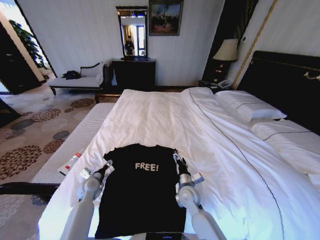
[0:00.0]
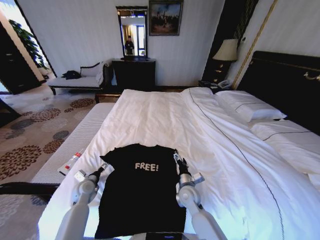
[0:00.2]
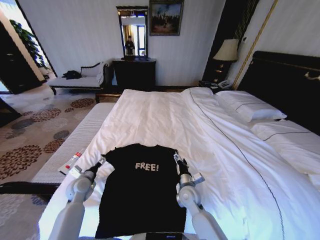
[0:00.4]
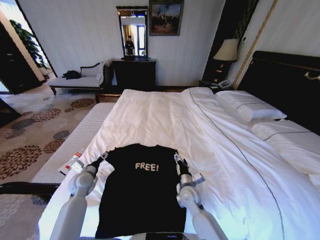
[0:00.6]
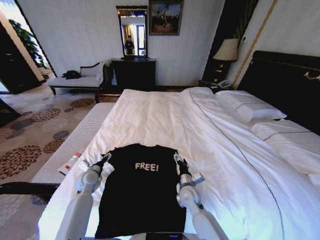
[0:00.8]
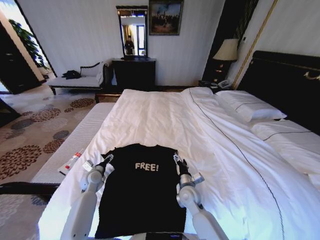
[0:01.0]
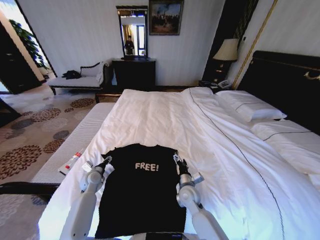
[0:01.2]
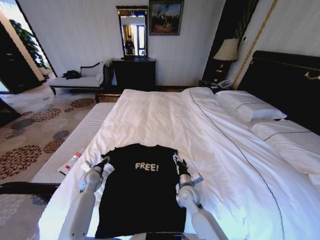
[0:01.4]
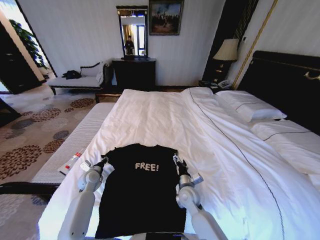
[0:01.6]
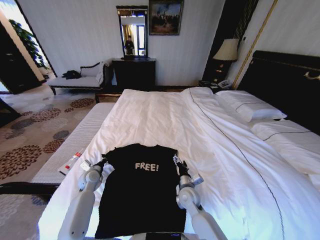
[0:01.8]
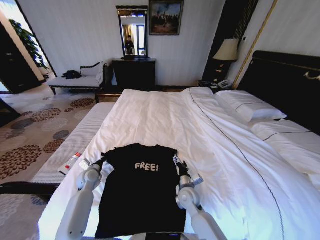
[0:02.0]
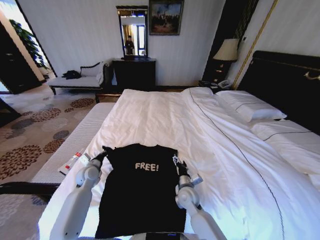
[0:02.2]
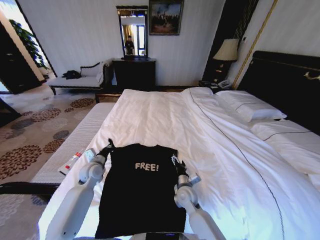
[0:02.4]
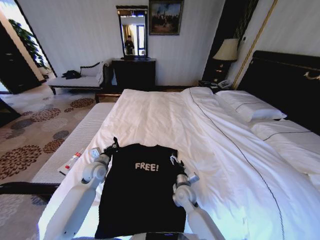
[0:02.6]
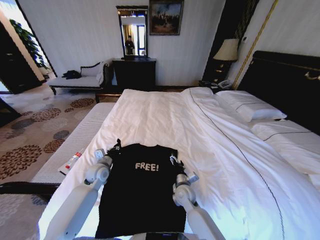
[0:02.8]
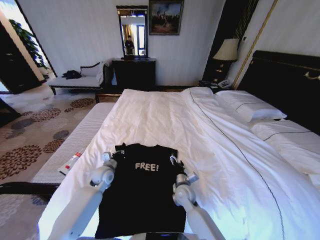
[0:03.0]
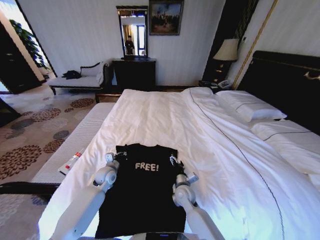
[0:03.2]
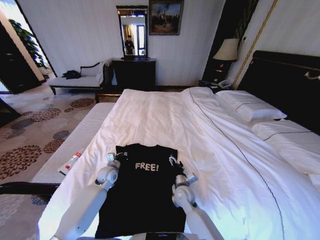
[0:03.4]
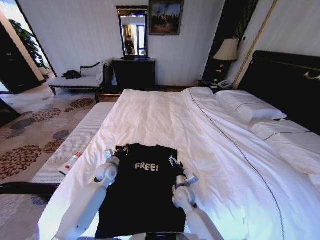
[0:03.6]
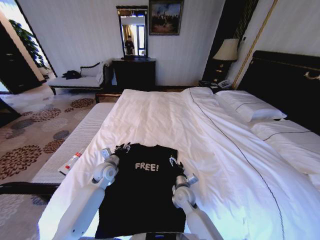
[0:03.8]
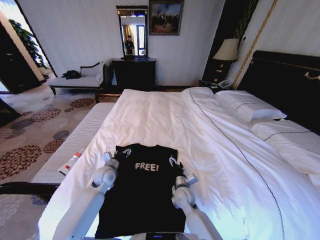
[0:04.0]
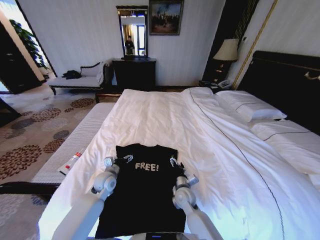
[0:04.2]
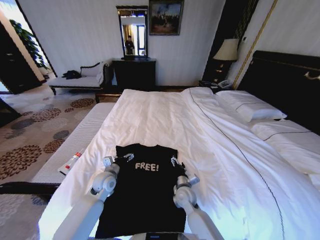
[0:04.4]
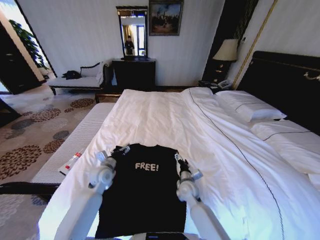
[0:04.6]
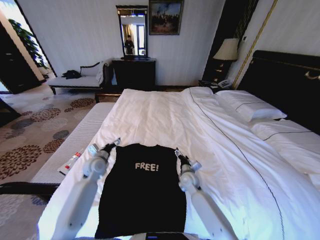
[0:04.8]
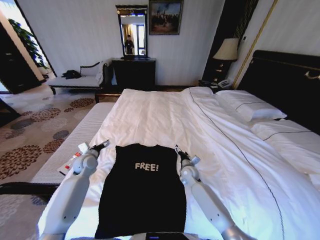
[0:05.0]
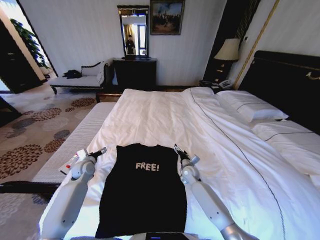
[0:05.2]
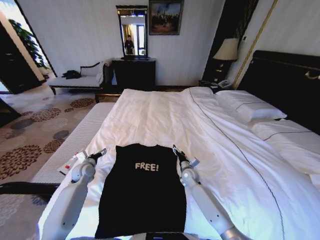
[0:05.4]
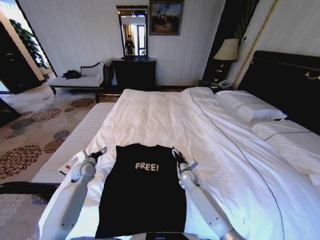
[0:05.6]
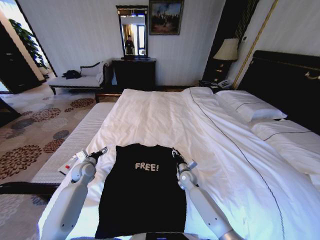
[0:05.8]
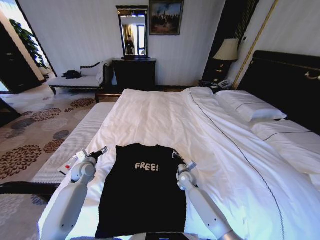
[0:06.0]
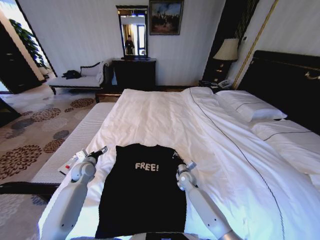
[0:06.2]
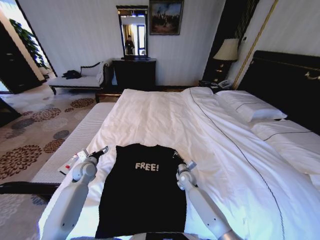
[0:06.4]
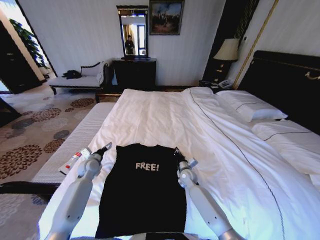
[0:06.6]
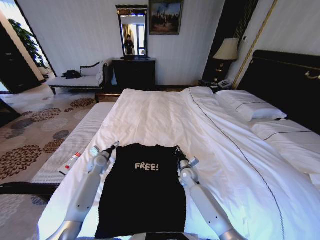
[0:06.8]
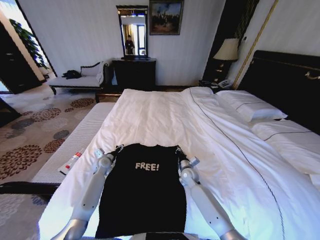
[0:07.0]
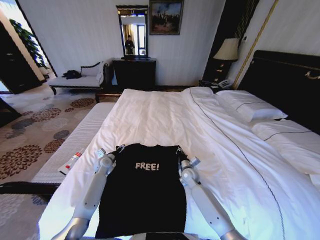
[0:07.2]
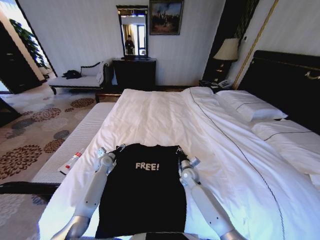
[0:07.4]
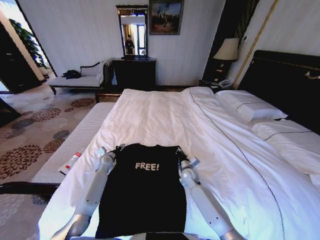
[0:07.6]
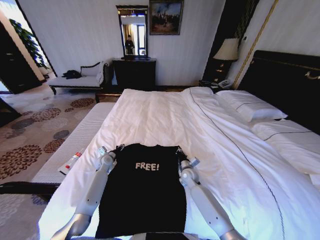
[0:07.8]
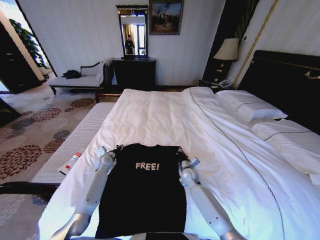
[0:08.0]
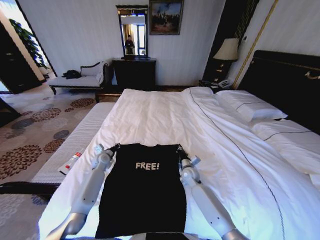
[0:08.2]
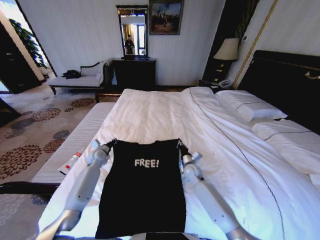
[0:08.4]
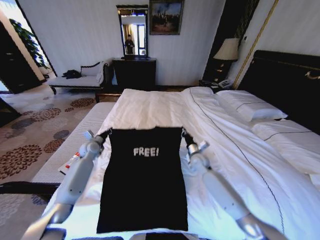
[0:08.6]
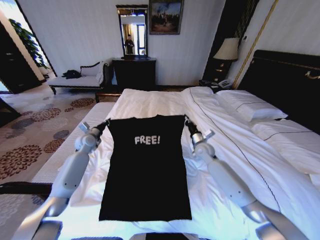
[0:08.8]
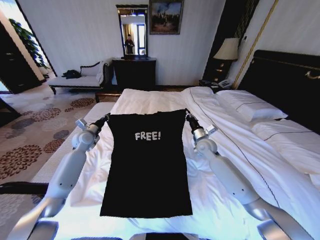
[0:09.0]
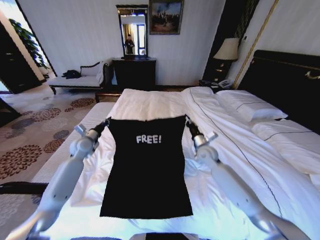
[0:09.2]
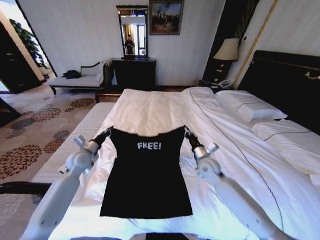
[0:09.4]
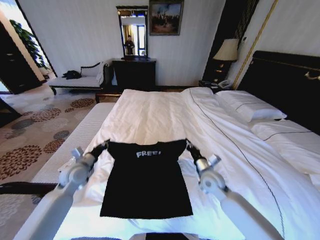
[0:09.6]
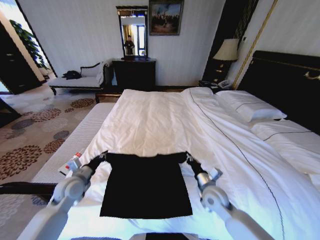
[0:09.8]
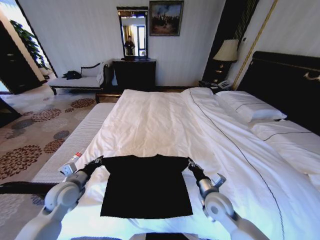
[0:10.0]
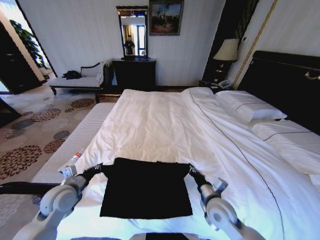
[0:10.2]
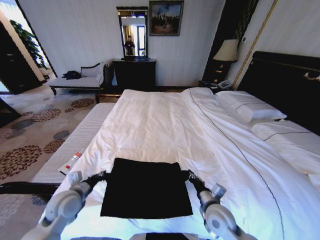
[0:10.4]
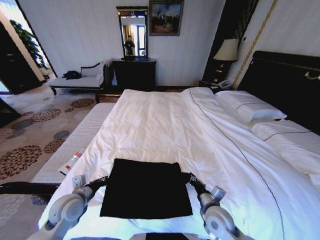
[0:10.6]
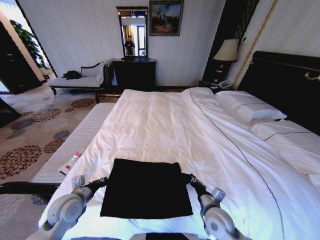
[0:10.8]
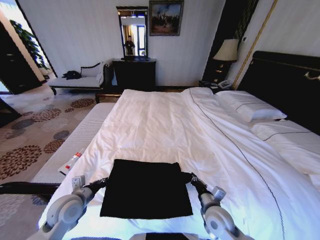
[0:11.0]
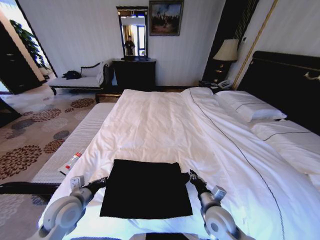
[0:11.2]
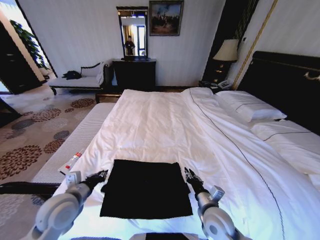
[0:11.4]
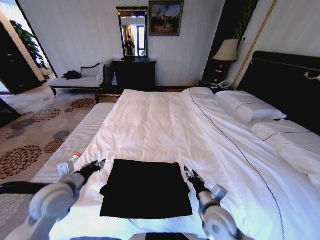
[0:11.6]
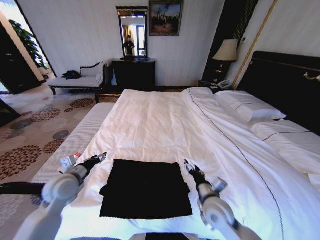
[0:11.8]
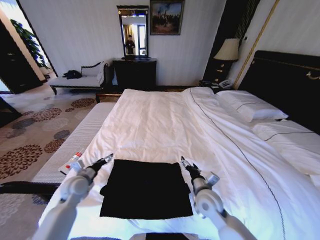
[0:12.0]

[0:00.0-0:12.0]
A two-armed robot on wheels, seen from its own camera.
Task of the whole recording: Fold the clothes on the bed.
0:00.0 to 0:01.6: The left gripper closes up.
0:01.6 to 0:03.0: The left gripper is displaced to the right by some 10 cm, and closes up.
0:03.0 to 0:04.4: The left gripper opens.
0:04.4 to 0:06.0: The right gripper goes roughly 10 cm forward, and closes its fingers. Meanwhile the left gripper is displaced to the left and forward by roughly 15 cm.
0:06.0 to 0:07.6: The right gripper closes its fingers. The left gripper shifts roughly 10 cm forward and to the right.
0:07.6 to 0:09.0: The left gripper moves upward and to the left, roughly 15 cm, and closes up; the right gripper heads upward and forward, covering some 20 cm.
0:09.0 to 0:10.4: The grippers both shift backward by approximately 25 cm.
0:10.4 to 0:12.0: The grippers both shift forward by roughly 5 cm. The right gripper opens up; the left gripper opens up.

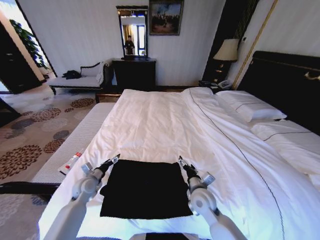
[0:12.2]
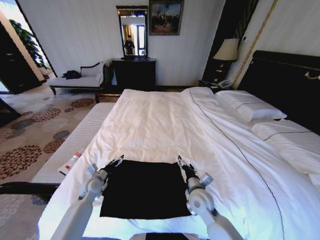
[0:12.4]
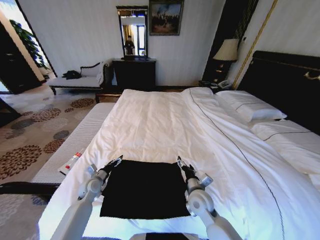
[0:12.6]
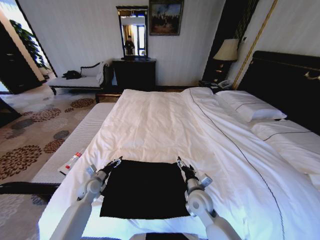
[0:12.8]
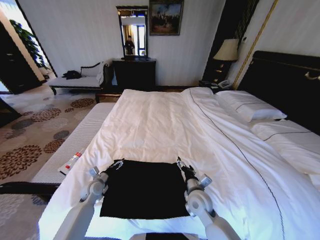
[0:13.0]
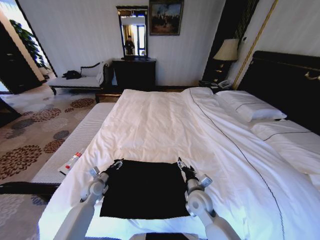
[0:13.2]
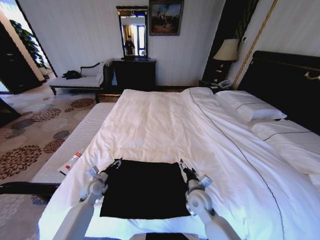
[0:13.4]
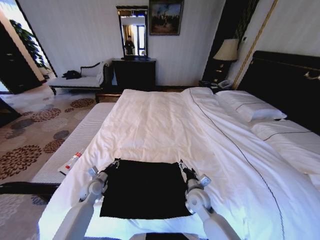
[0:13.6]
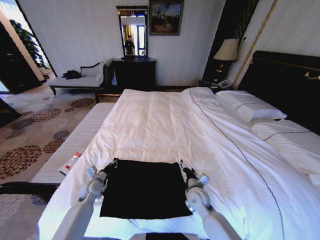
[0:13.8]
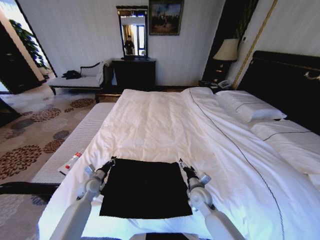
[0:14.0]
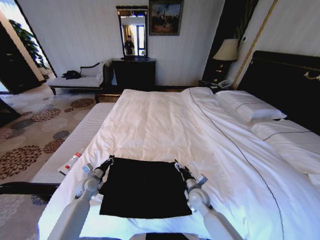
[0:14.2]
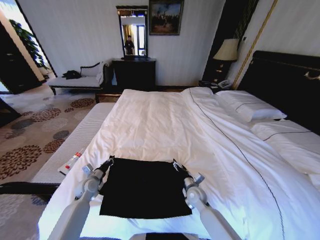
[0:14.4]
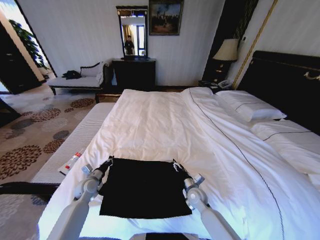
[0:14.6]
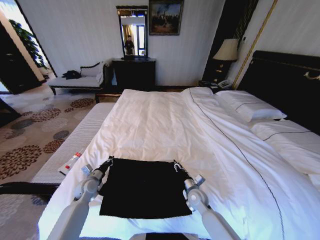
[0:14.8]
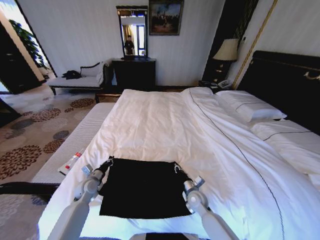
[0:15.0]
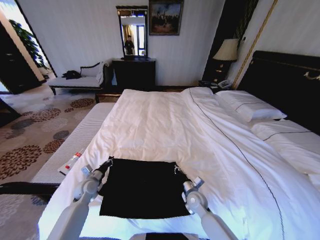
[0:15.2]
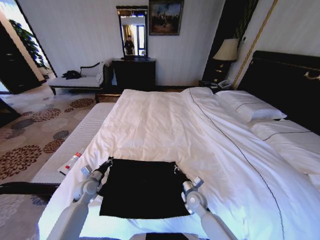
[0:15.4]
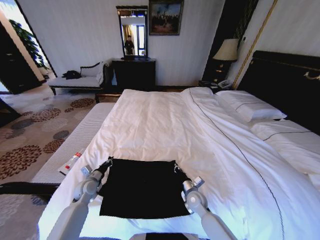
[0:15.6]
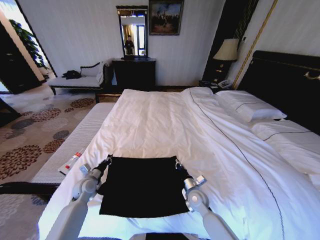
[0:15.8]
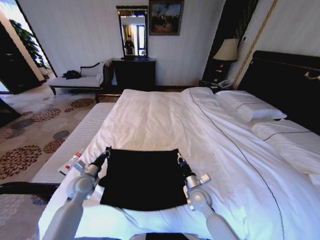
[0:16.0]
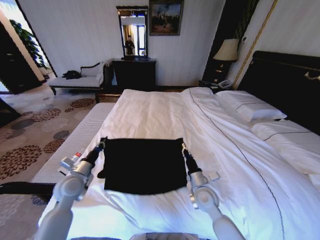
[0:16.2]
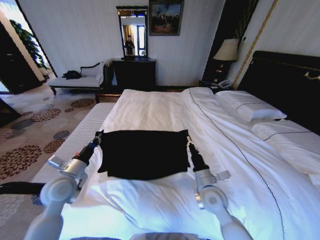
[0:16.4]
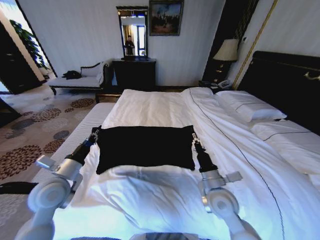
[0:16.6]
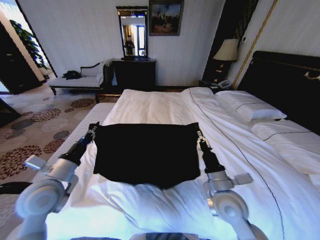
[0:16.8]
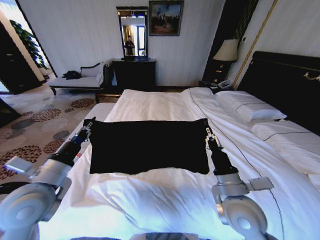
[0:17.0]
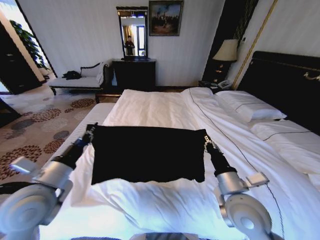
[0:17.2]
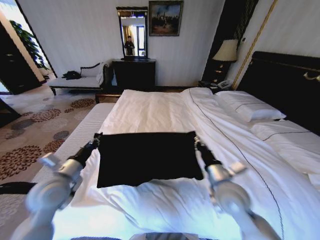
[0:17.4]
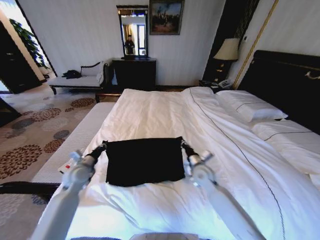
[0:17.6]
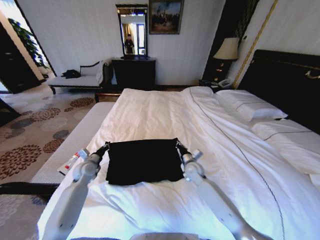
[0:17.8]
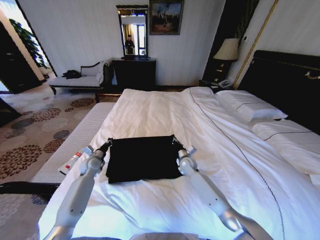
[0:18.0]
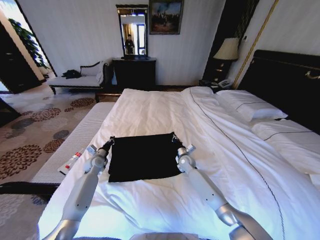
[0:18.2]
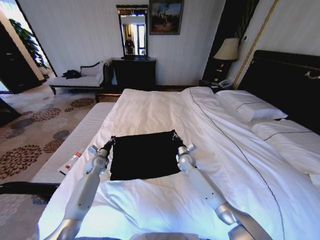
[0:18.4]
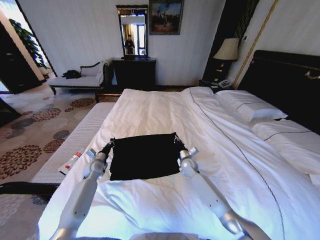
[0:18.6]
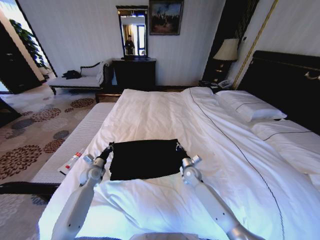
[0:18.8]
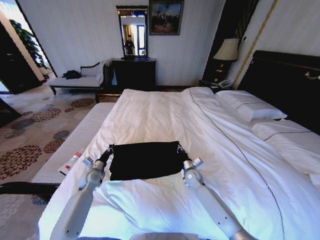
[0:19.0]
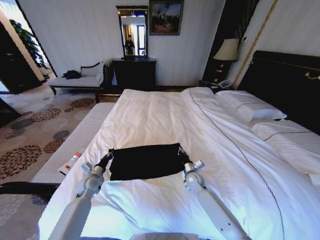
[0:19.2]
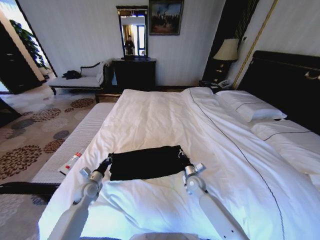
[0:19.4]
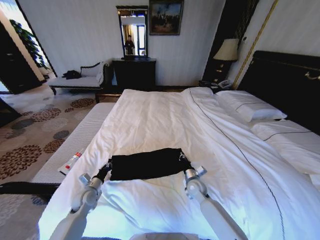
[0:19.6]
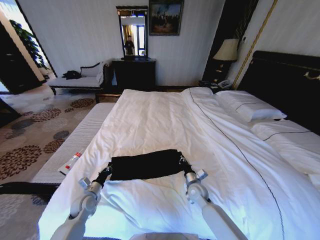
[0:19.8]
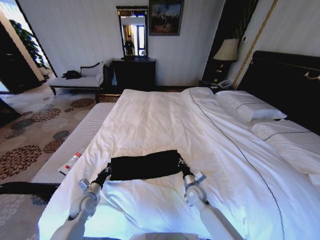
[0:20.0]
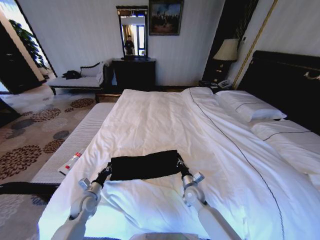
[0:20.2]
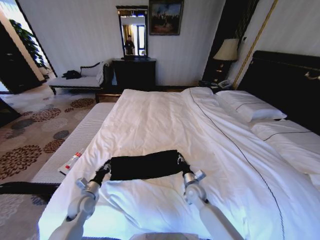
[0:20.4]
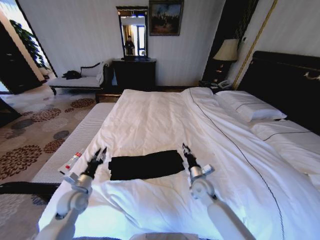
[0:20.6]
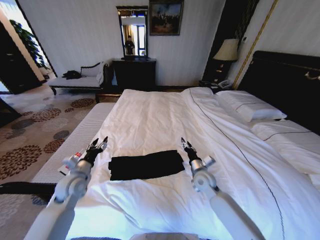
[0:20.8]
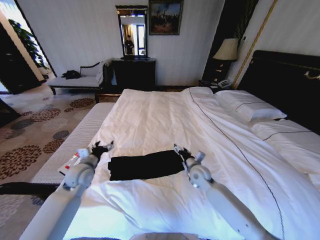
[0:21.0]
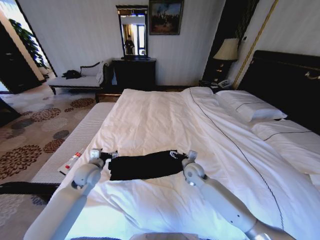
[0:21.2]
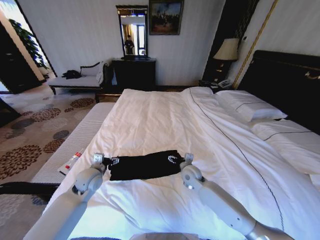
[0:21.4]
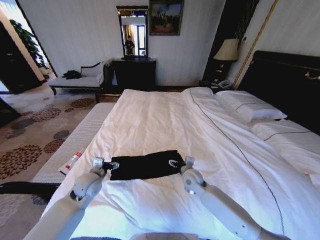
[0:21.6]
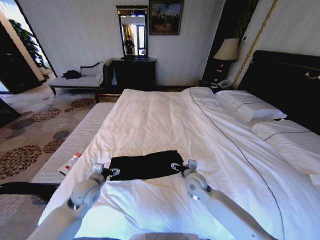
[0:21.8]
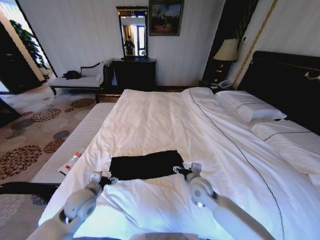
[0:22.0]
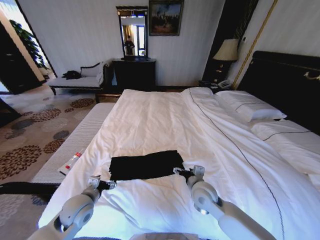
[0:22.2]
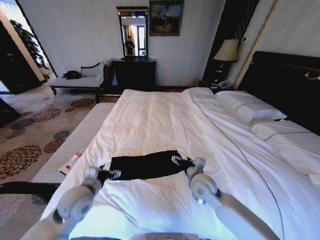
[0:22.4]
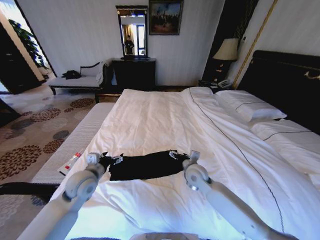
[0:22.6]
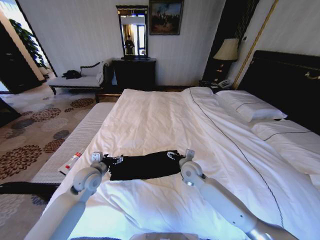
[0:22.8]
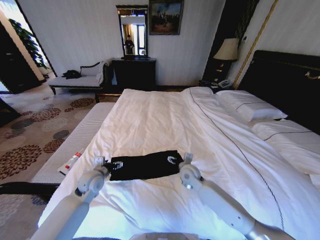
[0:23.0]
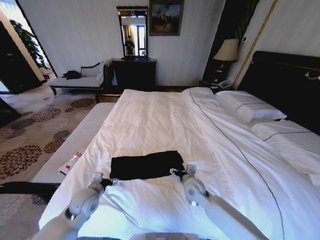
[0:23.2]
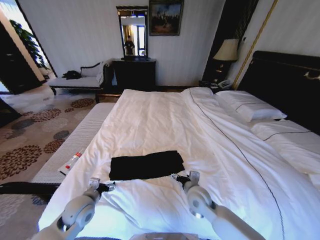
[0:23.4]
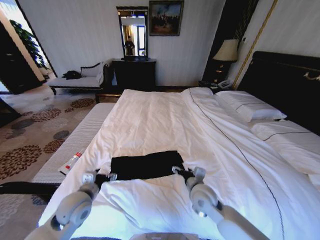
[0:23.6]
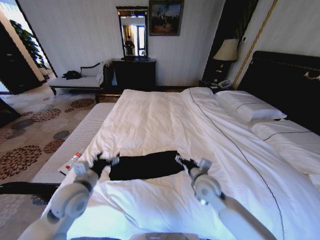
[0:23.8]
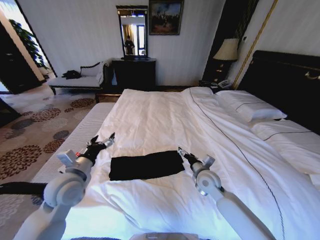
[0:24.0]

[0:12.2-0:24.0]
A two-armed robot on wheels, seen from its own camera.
Task of the whole recording: Fold the clothes on the bed.
0:12.2 to 0:13.6: The left gripper closes its fingers.
0:13.6 to 0:15.2: The right gripper heads downward, covering about 5 cm, and closes its fingers.
0:15.2 to 0:16.6: The left gripper heads upward and backward, covering roughly 20 cm. The right gripper heads upward, covering approximately 20 cm.
0:16.6 to 0:18.2: Both grippers travel together forward and downward, roughly 30 cm.
0:18.2 to 0:19.6: Both grippers travel together backward, approximately 15 cm.
0:19.6 to 0:21.0: The right gripper heads upward, covering roughly 10 cm, and opens its fingers. Meanwhile the left gripper heads upward, covering roughly 15 cm, and opens.
0:21.0 to 0:22.6: The right gripper goes backward and returns, about 10 cm each way. The left gripper travels backward by approximately 5 cm.
0:22.6 to 0:24.0: The right gripper travels backward and back again, roughly 10 cm each way.
